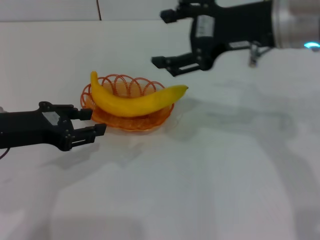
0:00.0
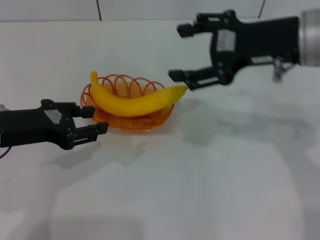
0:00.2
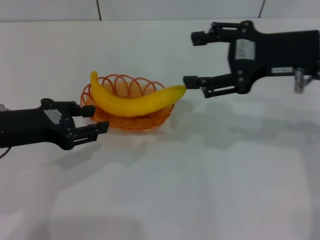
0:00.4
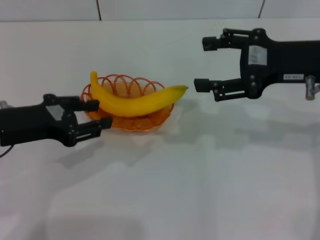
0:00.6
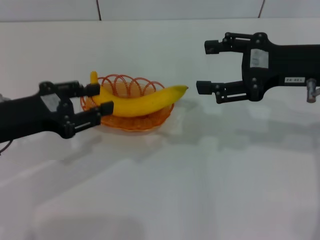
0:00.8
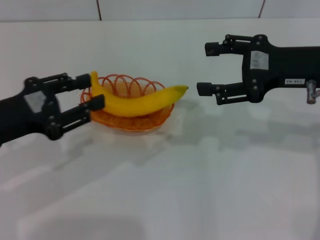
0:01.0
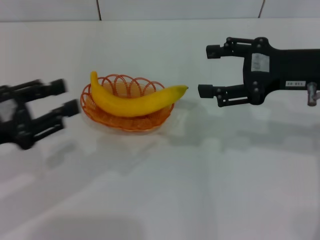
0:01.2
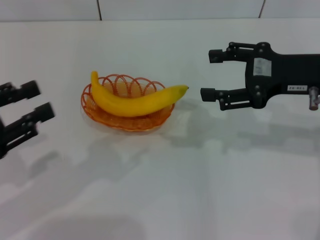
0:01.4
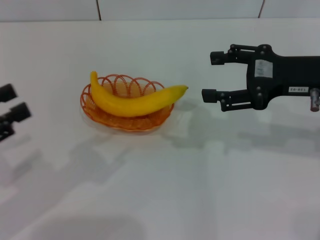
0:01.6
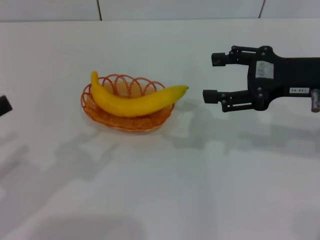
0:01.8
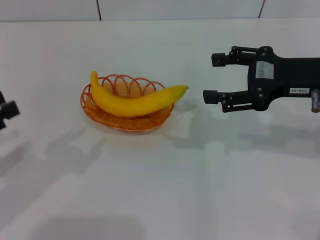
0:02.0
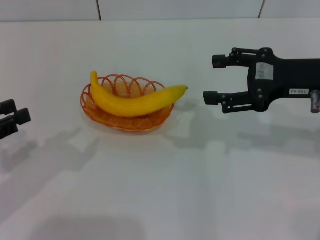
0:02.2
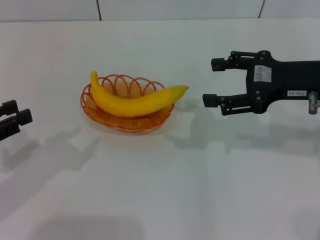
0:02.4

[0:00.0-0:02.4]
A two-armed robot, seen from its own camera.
0:00.0 to 0:01.2: The right gripper is displaced to the right and downward by some 10 cm, while the left gripper moves approximately 5 cm.
0:01.2 to 0:02.4: The left gripper is displaced to the left by roughly 5 cm.

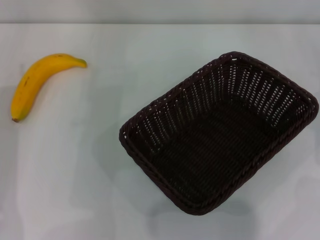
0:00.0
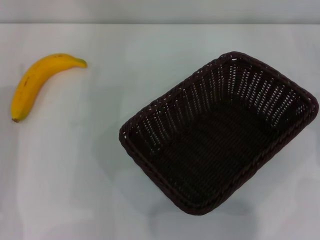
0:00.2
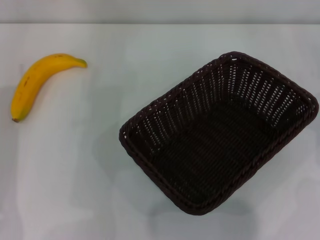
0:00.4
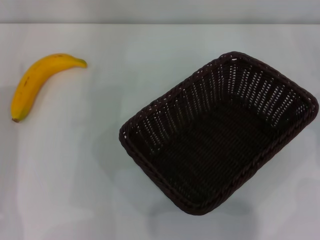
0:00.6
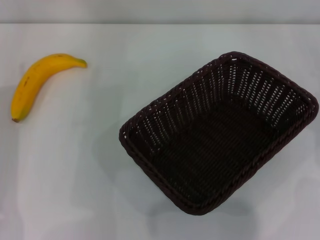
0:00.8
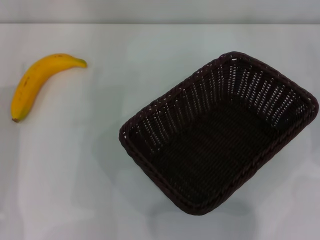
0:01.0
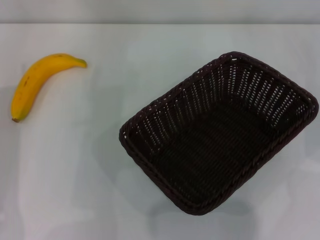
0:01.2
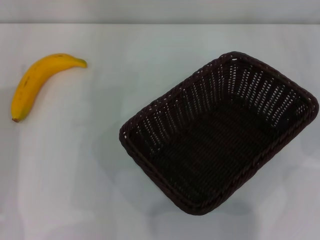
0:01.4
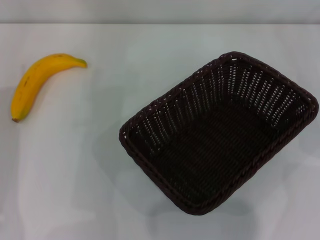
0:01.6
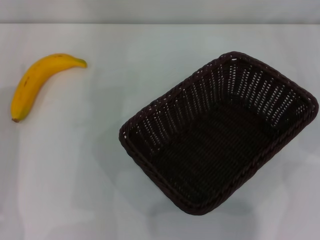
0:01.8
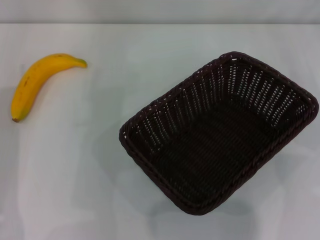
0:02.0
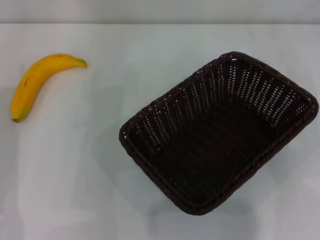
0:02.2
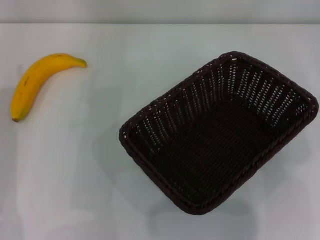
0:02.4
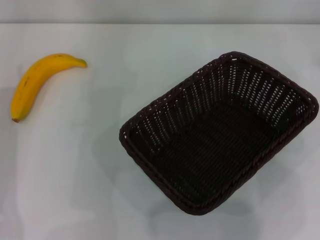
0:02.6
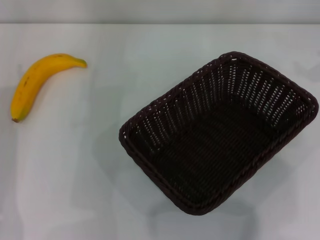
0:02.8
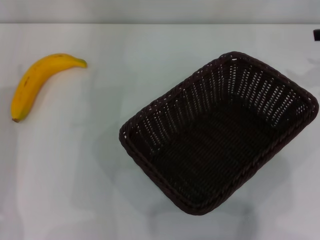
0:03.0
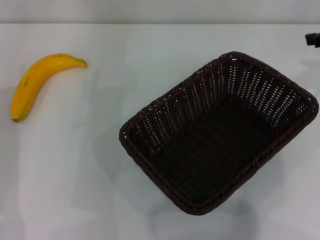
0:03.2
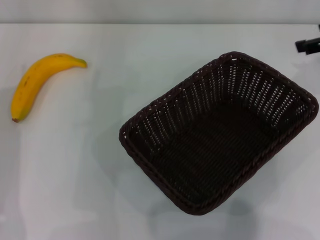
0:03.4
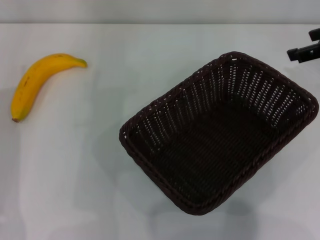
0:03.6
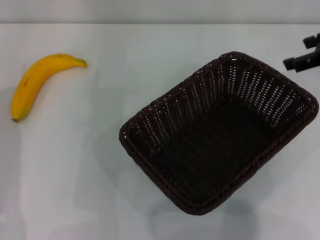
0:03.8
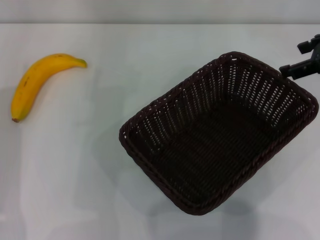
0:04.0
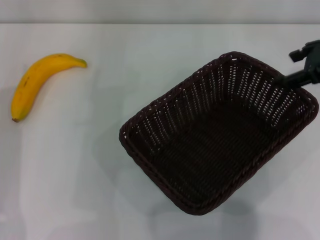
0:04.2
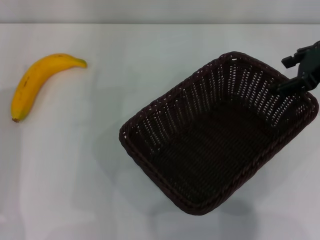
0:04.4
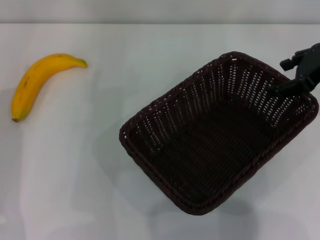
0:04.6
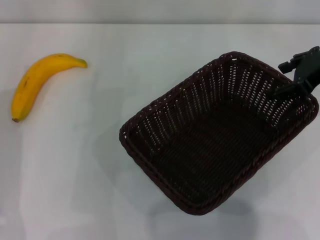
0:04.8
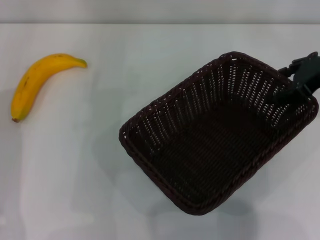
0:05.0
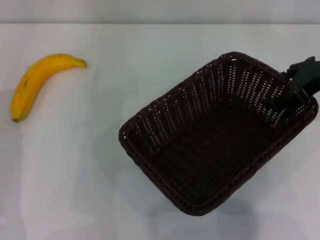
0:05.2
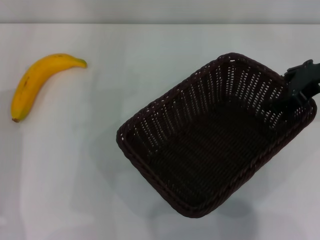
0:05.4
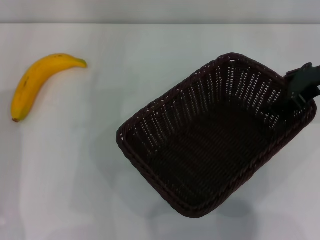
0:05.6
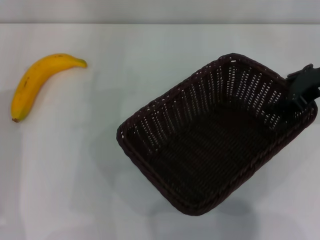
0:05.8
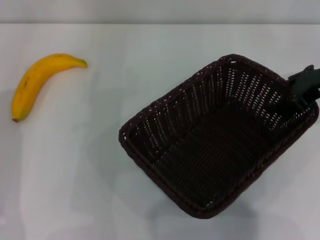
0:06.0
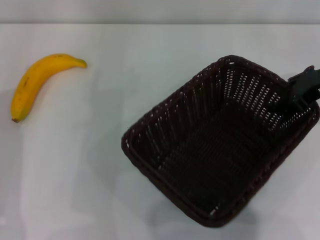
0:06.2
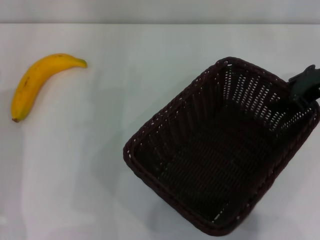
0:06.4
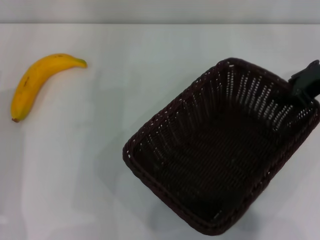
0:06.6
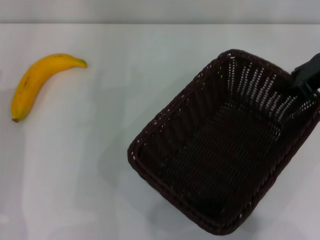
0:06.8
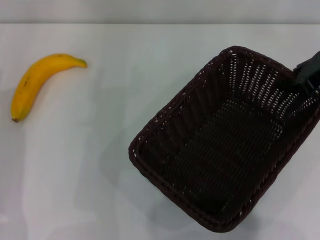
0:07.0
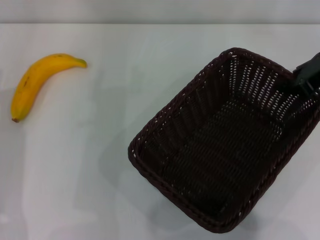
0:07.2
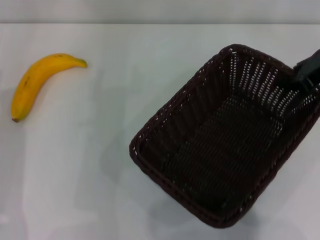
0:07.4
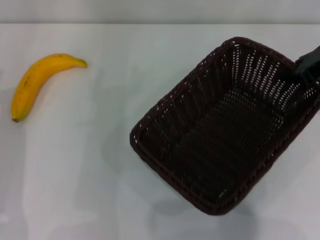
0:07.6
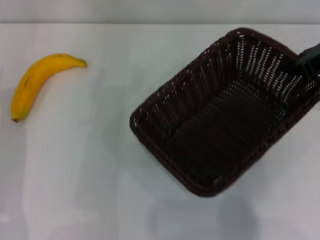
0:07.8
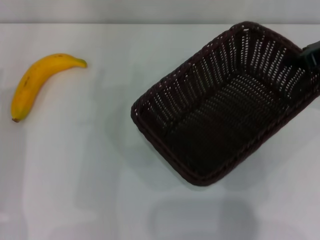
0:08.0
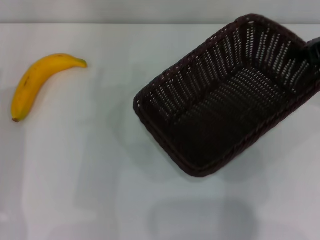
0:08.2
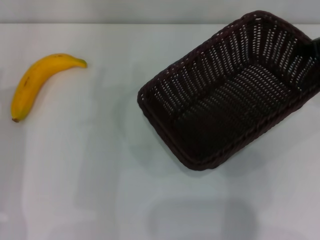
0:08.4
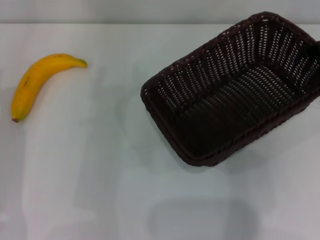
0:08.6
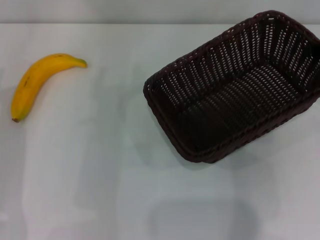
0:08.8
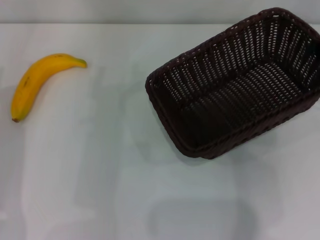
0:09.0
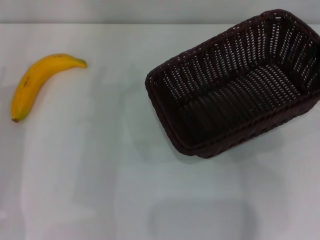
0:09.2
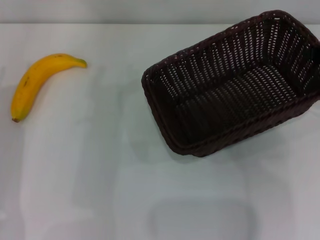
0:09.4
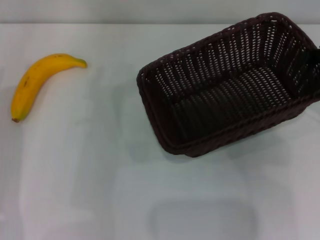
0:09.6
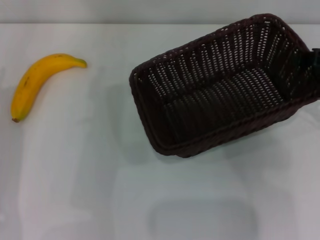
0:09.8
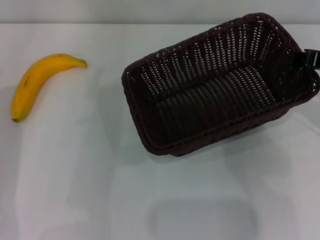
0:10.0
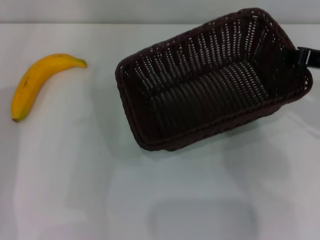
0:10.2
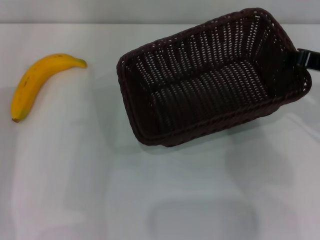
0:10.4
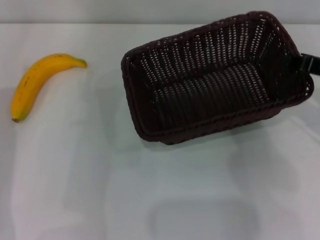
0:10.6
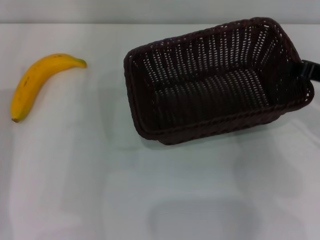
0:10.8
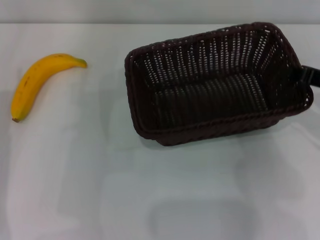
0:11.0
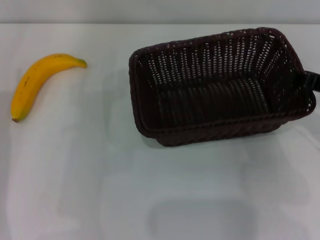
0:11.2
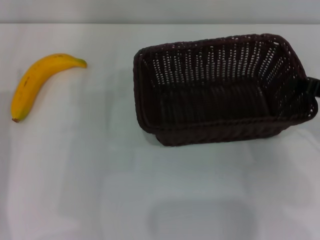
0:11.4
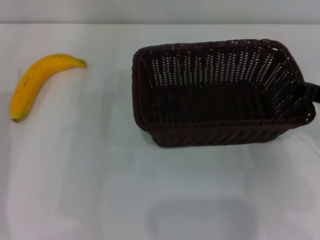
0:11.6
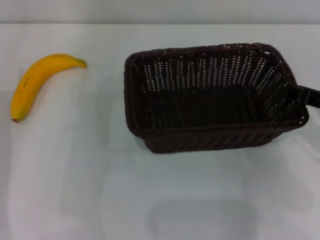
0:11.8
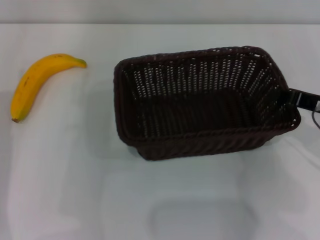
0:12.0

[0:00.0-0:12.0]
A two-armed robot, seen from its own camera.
Step, 0:00.0 to 0:07.6: Pick up the dark basket with the right gripper.
0:03.0 to 0:04.4: The right gripper shifts about 5 cm to the left.
0:04.4 to 0:06.0: The grippers stay close to where they were, moving slightly.
0:06.0 to 0:07.6: The right gripper closes.
0:09.0 to 0:10.4: The right gripper shifts by approximately 5 cm.
0:10.4 to 0:12.0: The right gripper ends up some 5 cm from where it was.

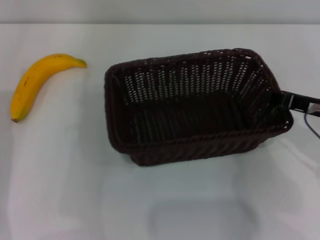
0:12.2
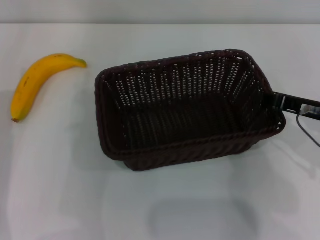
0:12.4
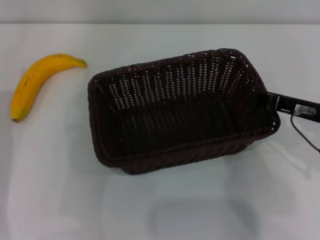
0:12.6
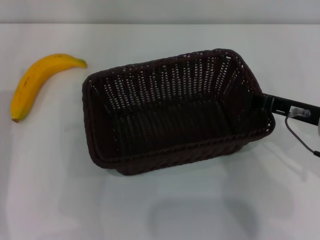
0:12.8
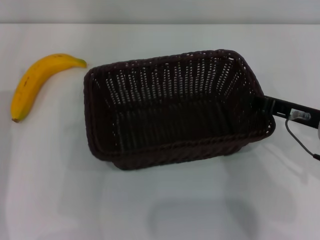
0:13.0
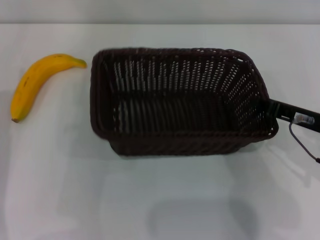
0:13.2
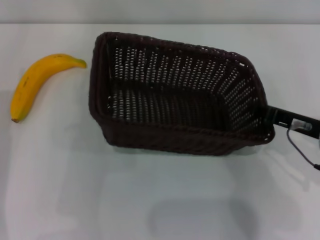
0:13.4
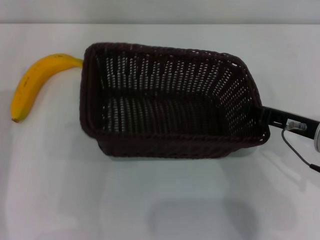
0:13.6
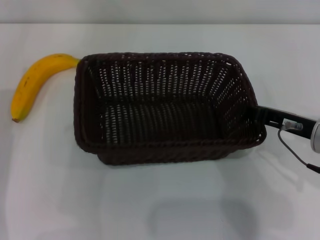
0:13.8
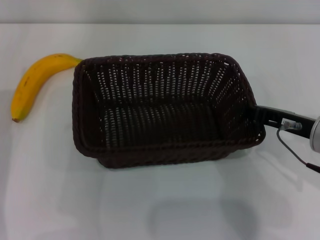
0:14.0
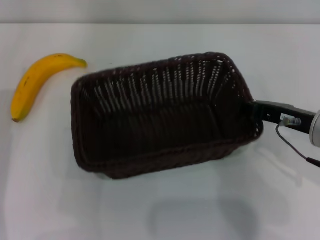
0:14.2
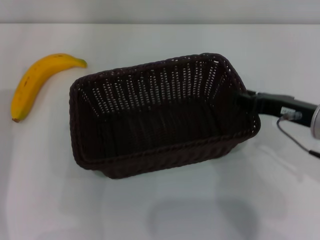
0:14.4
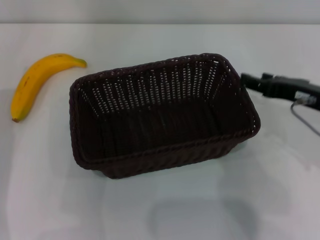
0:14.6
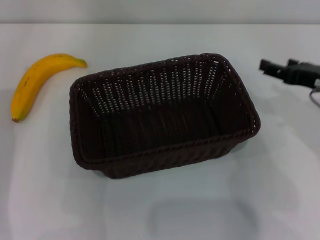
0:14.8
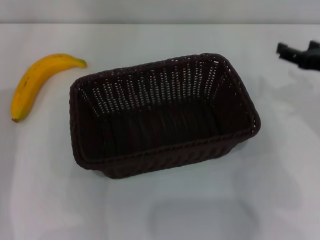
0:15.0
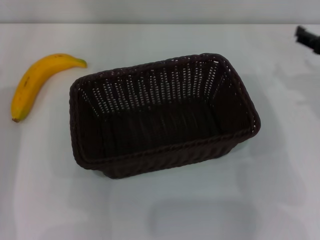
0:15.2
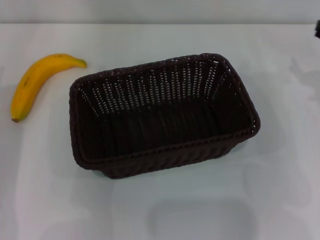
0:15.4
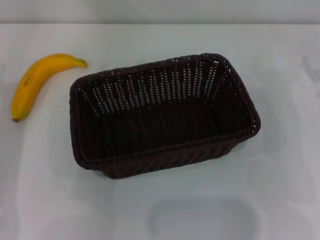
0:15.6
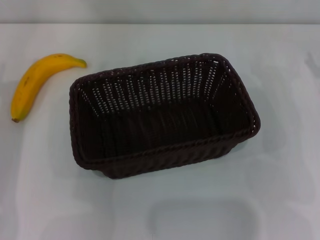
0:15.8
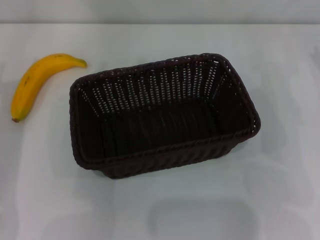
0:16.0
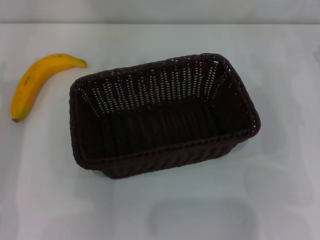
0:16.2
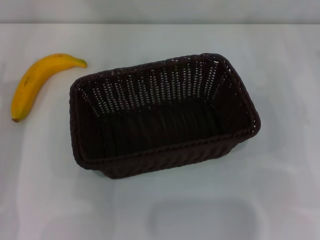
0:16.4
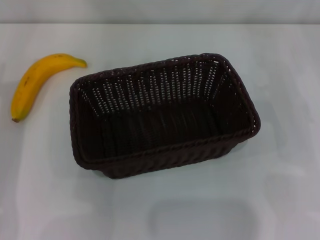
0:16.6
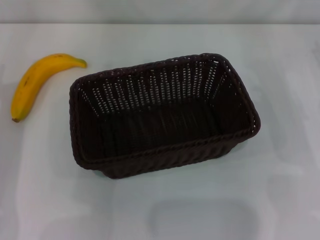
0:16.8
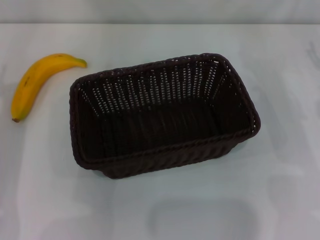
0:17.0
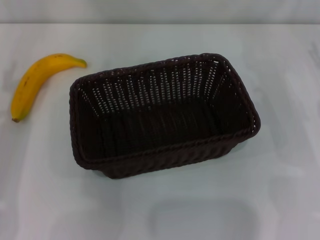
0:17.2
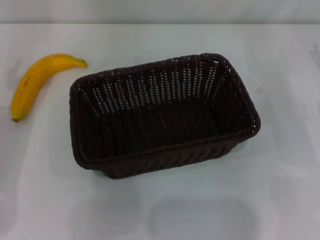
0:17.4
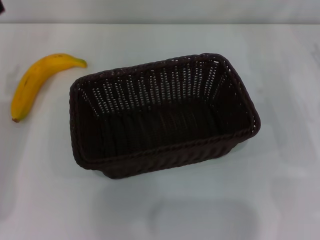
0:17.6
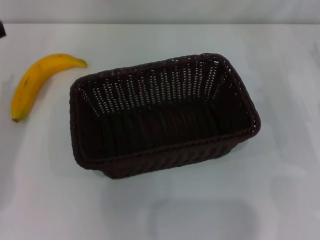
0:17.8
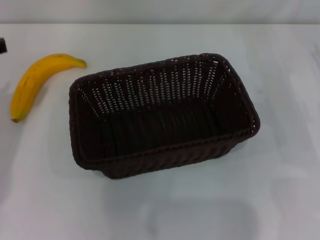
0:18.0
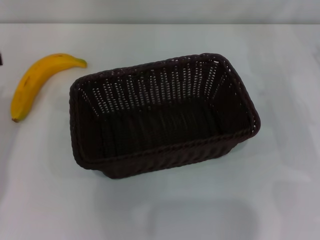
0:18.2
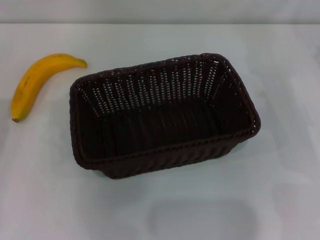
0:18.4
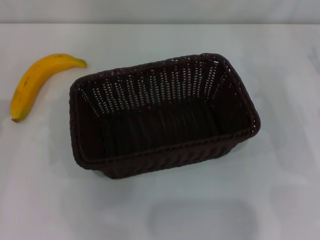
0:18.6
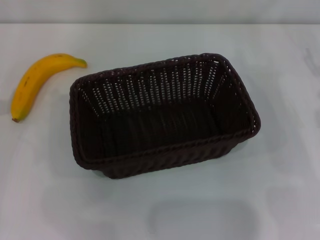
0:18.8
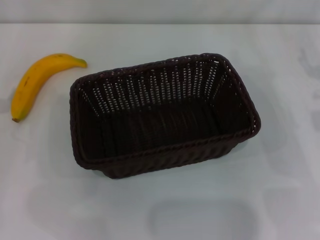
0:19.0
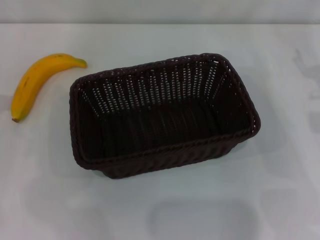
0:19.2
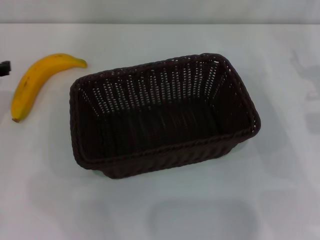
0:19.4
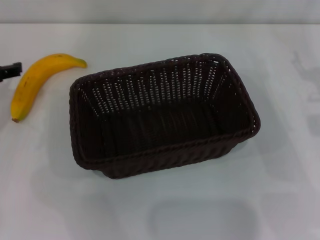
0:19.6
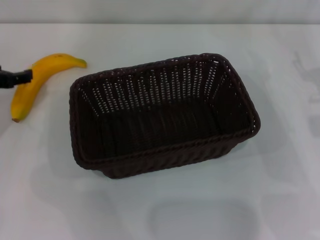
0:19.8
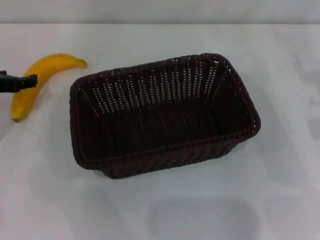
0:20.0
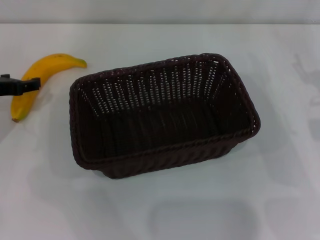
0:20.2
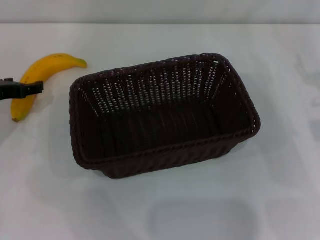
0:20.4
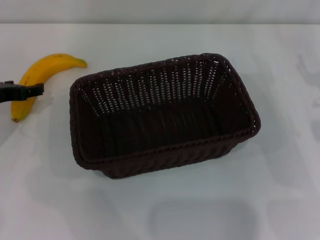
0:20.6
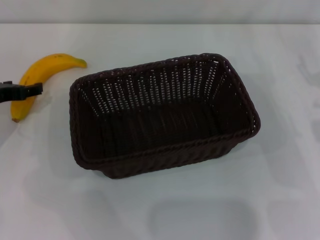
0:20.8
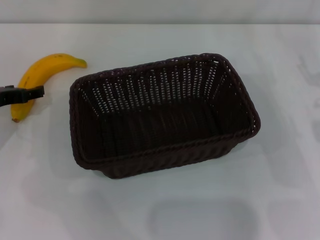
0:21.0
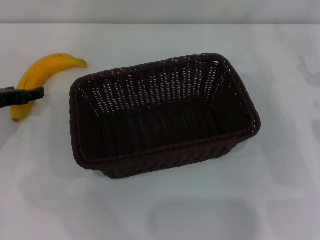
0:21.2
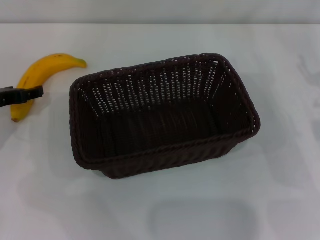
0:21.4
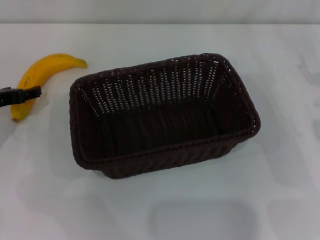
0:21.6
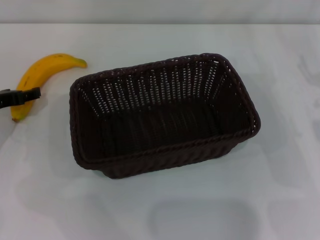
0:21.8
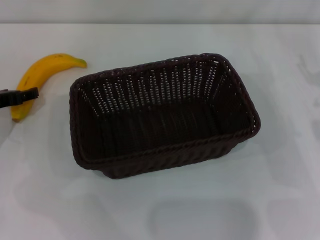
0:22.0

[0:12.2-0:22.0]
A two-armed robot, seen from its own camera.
Step, 0:12.2 to 0:14.6: Place the dark basket in the center of view with the right gripper.
0:12.2 to 0:13.6: The grippers stay close to where they were, moving slightly.
0:13.6 to 0:15.0: The right gripper shifts by roughly 5 cm, and opens.
0:15.0 to 0:16.4: The right gripper shifts about 5 cm to the right.
0:19.2 to 0:20.6: The left gripper shifts approximately 5 cm downward.
